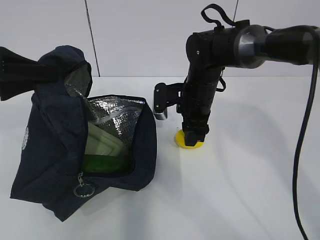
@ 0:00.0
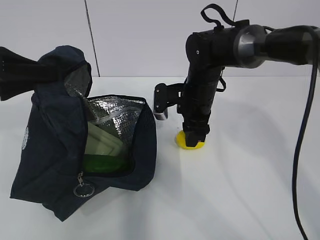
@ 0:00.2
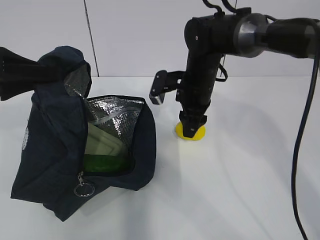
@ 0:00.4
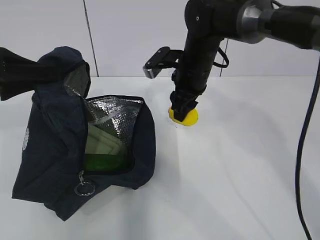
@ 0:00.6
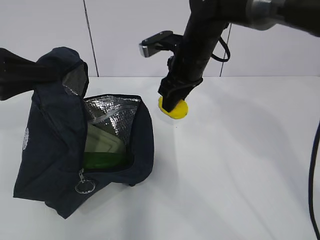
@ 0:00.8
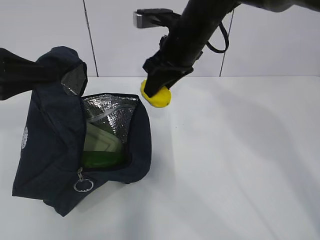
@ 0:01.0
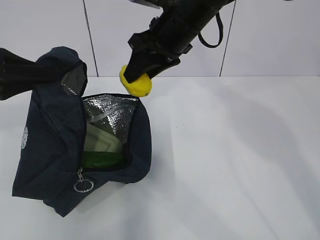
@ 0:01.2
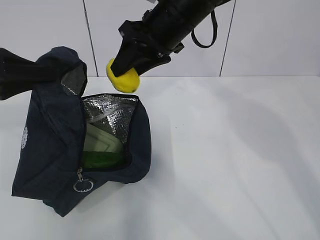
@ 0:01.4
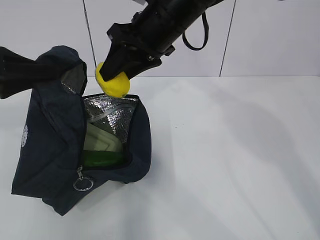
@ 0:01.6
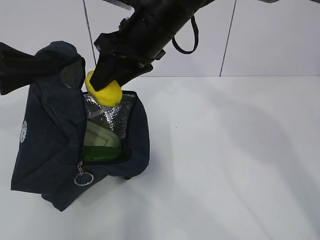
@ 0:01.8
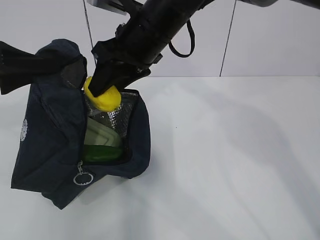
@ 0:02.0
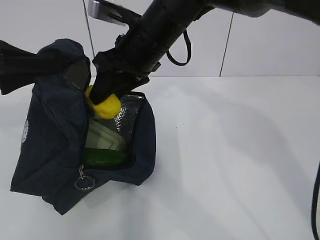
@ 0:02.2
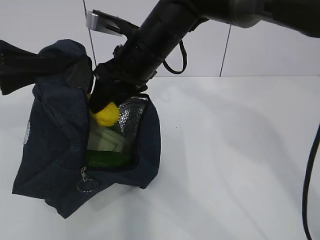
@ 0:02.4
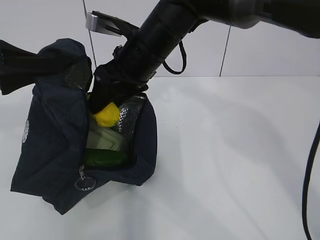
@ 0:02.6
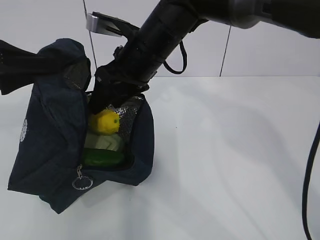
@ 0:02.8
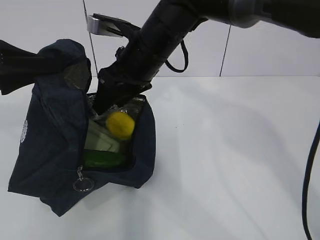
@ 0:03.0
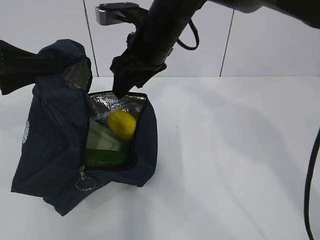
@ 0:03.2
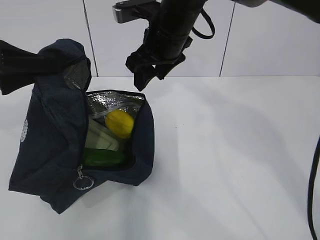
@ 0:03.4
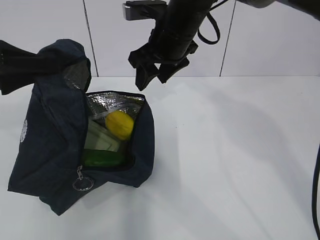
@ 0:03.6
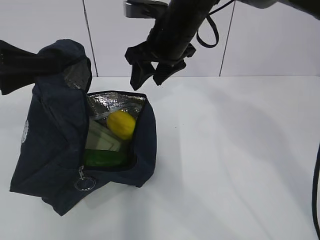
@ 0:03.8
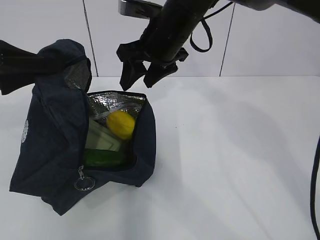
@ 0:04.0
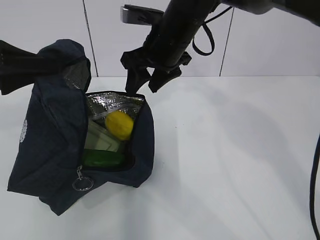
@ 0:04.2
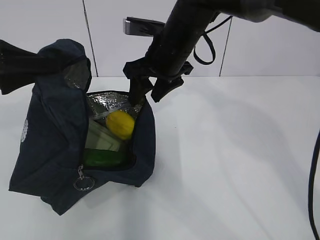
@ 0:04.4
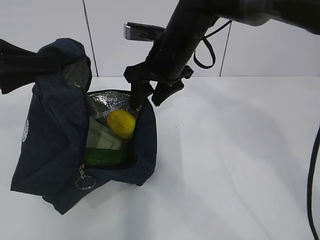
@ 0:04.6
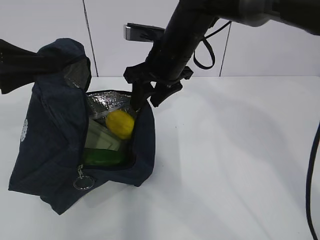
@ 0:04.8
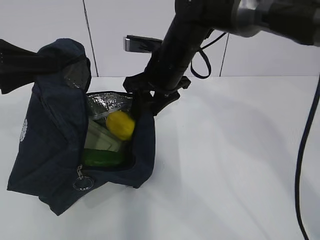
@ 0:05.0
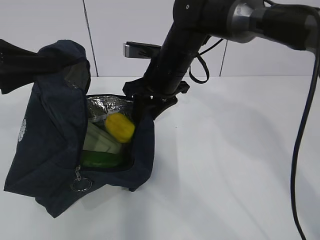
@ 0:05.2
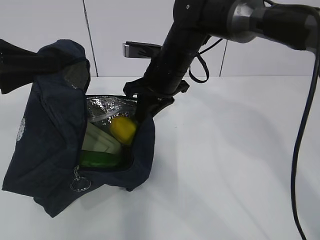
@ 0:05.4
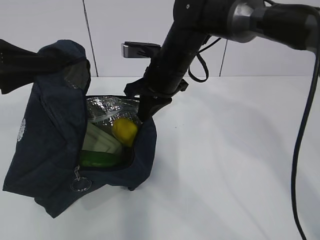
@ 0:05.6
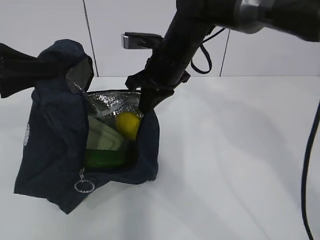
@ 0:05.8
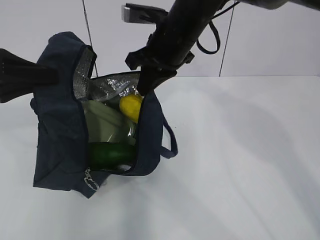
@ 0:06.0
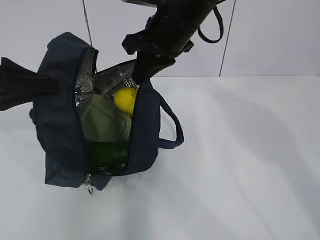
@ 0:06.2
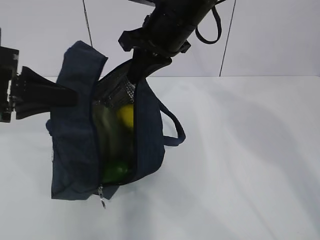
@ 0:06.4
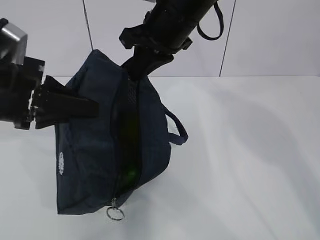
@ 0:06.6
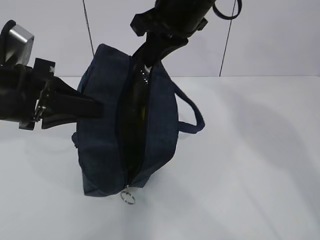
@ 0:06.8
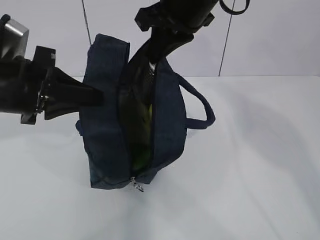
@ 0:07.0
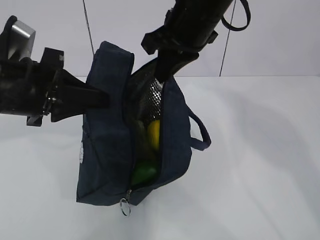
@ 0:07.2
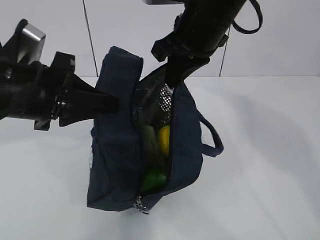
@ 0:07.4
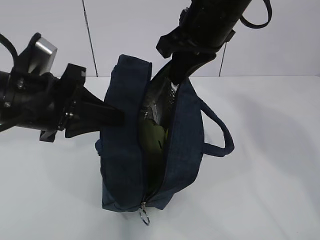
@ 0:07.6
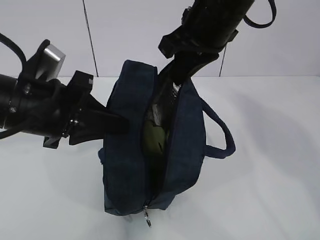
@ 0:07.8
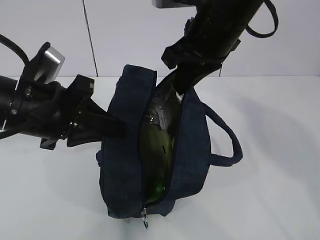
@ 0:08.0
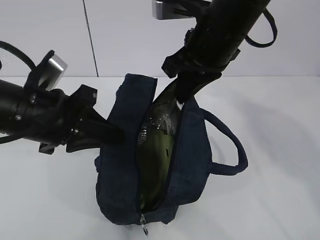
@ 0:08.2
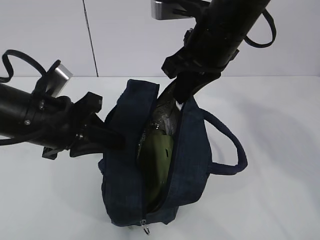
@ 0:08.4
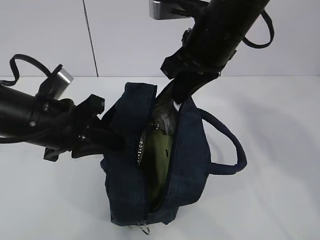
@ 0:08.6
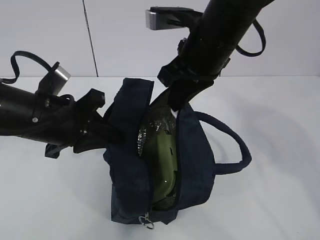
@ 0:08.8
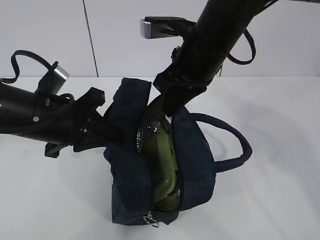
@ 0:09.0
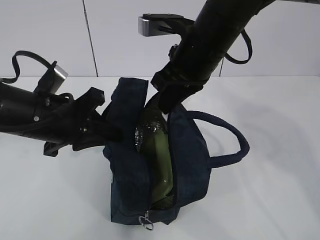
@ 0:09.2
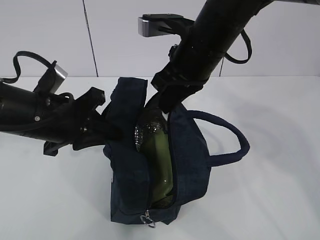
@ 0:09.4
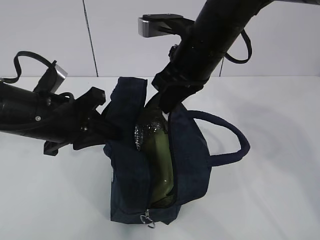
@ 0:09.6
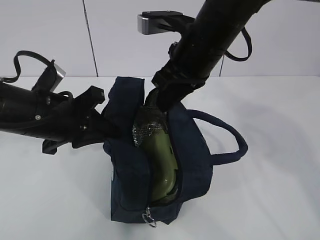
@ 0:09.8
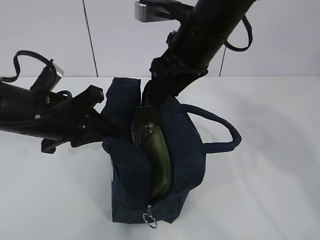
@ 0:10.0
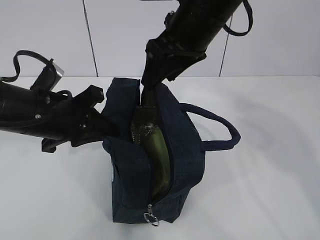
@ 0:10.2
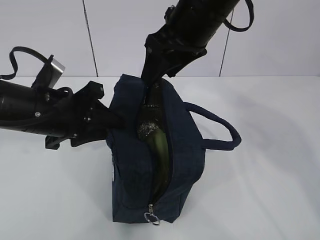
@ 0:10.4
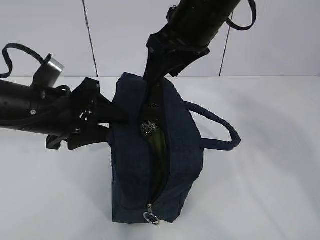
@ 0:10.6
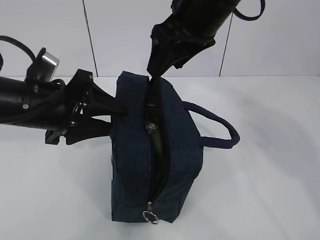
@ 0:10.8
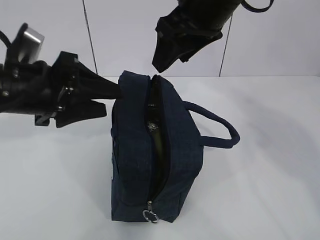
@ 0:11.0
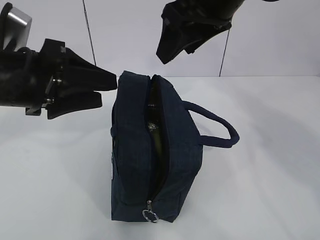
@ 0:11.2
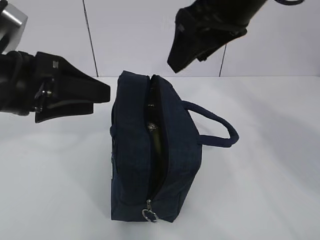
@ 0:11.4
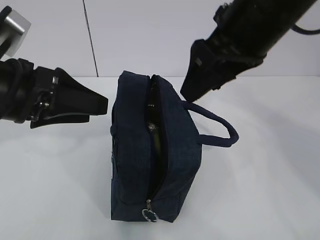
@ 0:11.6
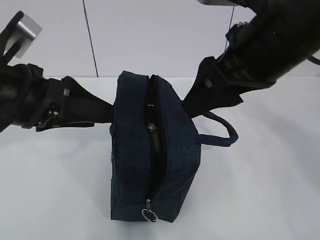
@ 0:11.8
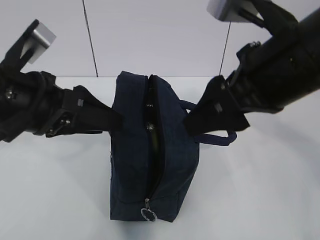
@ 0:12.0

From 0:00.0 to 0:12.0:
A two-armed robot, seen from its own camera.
From 0:00.0 to 0:01.6: The right gripper moves upward, approximately 15 cm.
From 0:01.6 to 0:03.0: The right gripper shifts by approximately 5 cm.
From 0:04.4 to 0:06.0: The right gripper closes up.
From 0:06.0 to 0:07.6: The right gripper moves upward and backward, approximately 10 cm. The left gripper shifts about 10 cm to the right.
From 0:09.0 to 0:10.4: The right gripper opens up, while the left gripper opens.
From 0:10.4 to 0:12.0: The right gripper moves backward and to the right, about 15 cm, while the left gripper heads upward, covering roughly 5 cm, and opens.

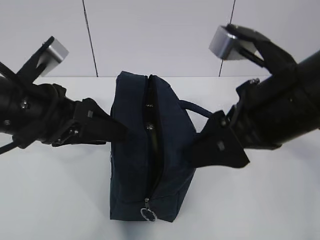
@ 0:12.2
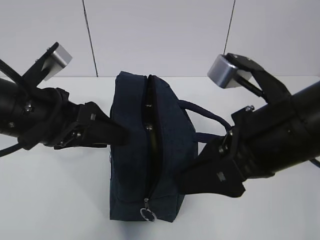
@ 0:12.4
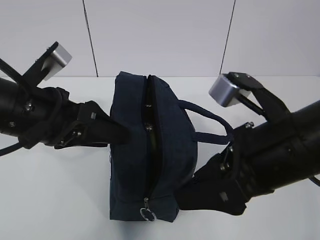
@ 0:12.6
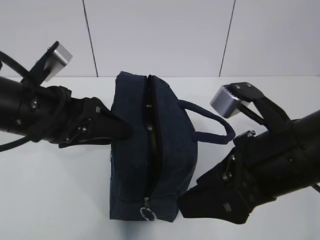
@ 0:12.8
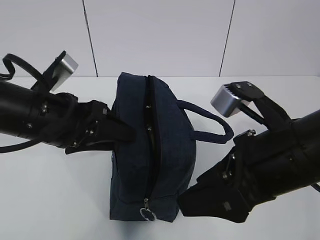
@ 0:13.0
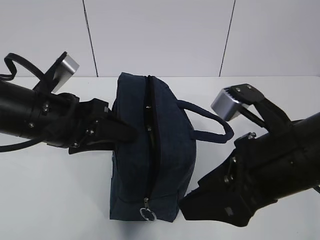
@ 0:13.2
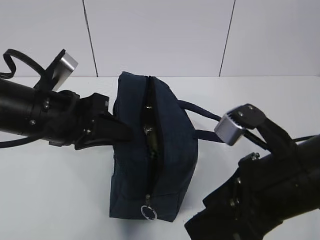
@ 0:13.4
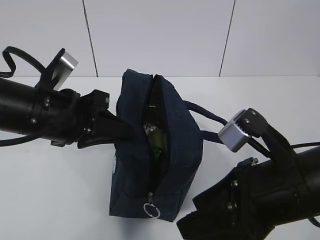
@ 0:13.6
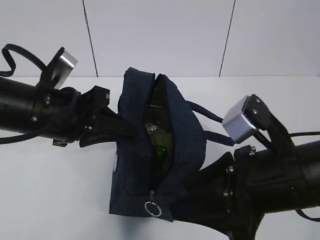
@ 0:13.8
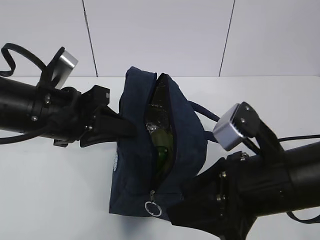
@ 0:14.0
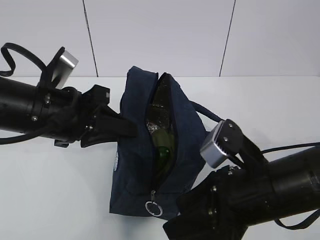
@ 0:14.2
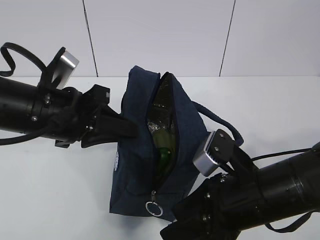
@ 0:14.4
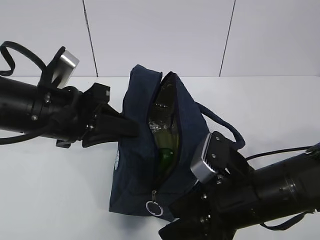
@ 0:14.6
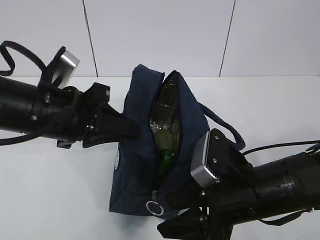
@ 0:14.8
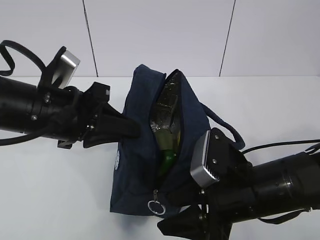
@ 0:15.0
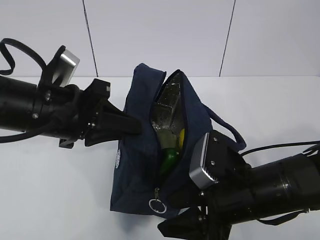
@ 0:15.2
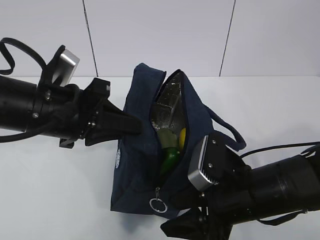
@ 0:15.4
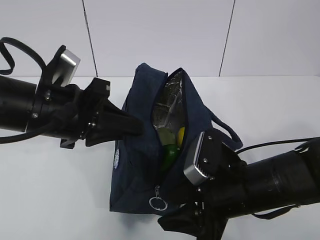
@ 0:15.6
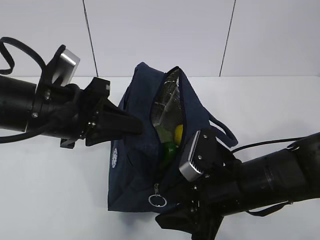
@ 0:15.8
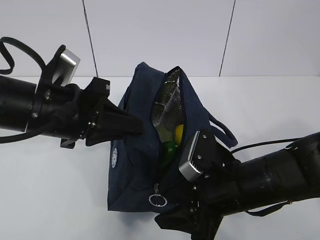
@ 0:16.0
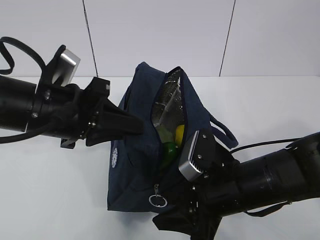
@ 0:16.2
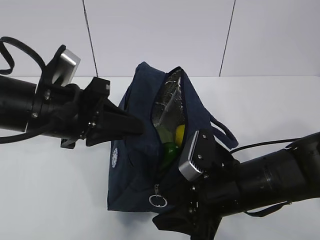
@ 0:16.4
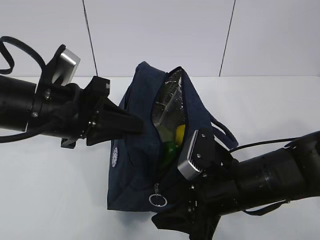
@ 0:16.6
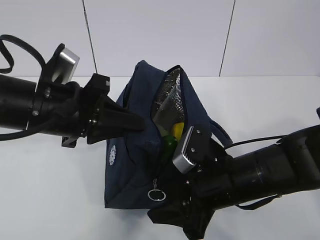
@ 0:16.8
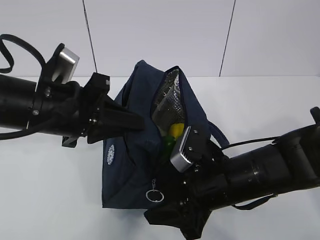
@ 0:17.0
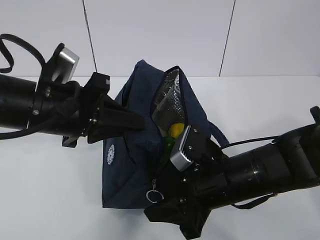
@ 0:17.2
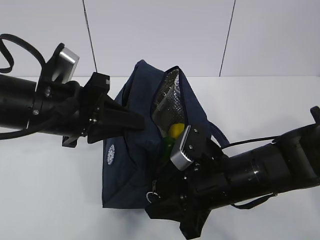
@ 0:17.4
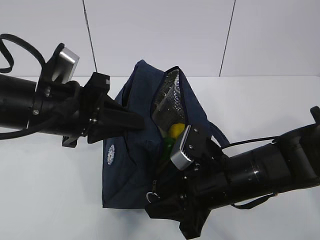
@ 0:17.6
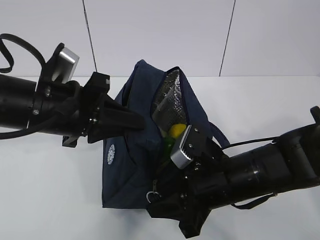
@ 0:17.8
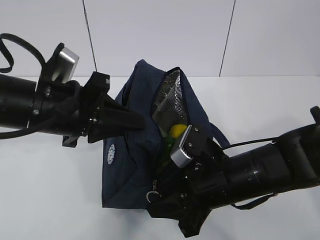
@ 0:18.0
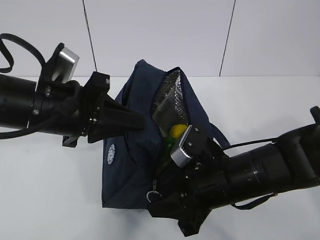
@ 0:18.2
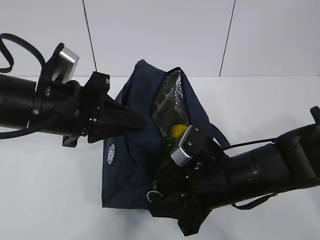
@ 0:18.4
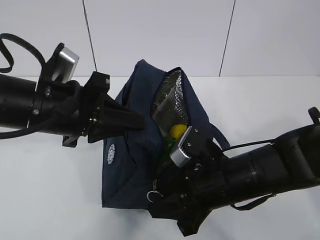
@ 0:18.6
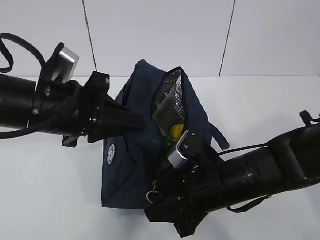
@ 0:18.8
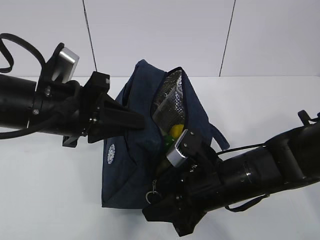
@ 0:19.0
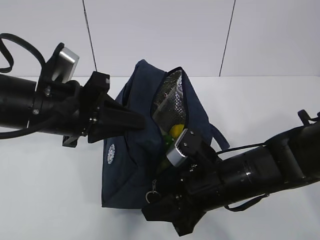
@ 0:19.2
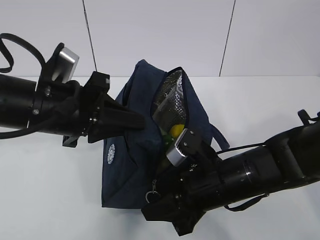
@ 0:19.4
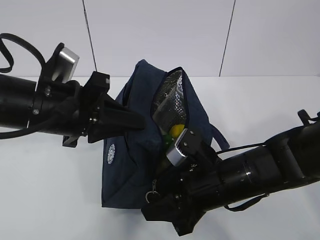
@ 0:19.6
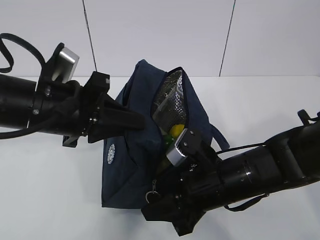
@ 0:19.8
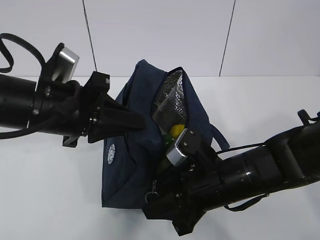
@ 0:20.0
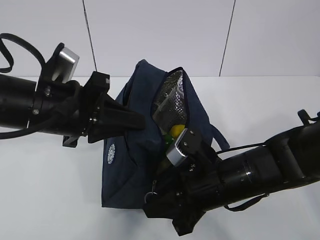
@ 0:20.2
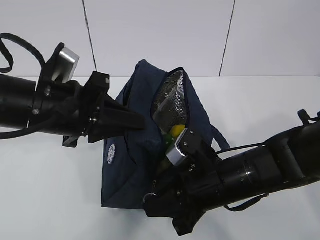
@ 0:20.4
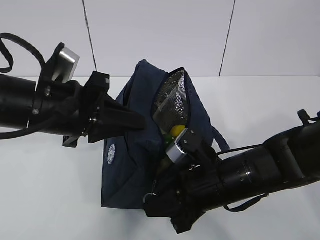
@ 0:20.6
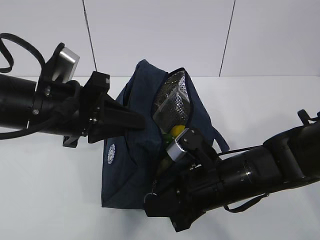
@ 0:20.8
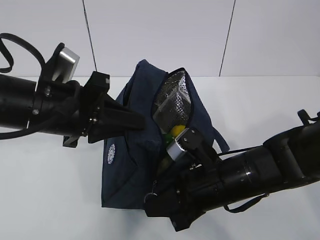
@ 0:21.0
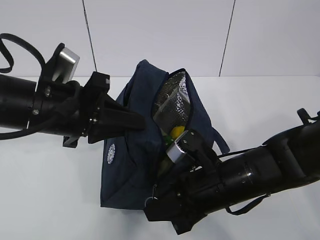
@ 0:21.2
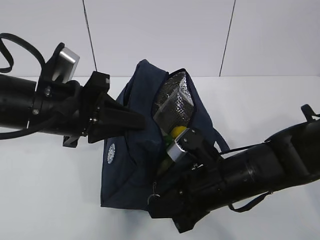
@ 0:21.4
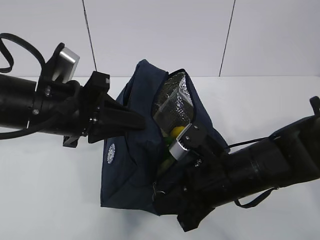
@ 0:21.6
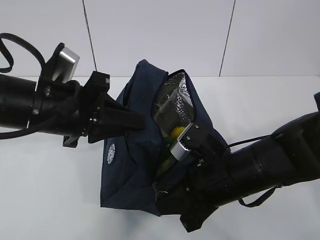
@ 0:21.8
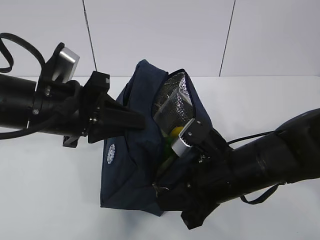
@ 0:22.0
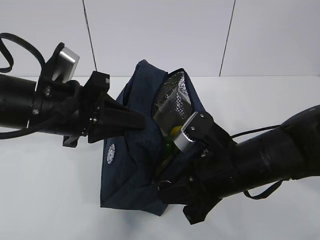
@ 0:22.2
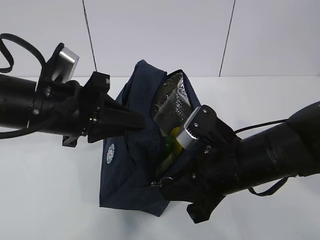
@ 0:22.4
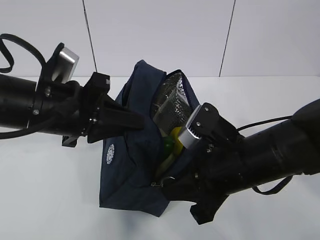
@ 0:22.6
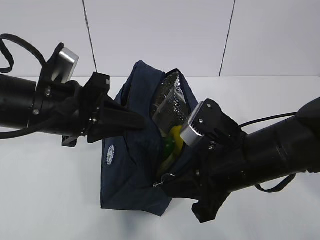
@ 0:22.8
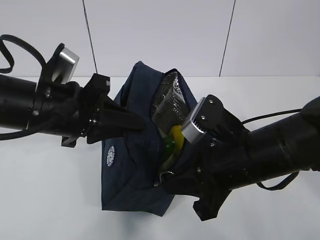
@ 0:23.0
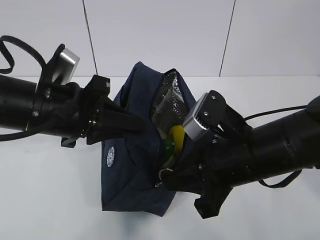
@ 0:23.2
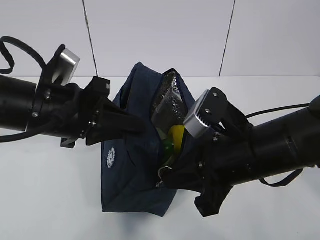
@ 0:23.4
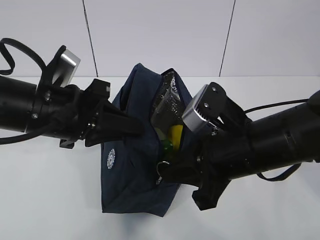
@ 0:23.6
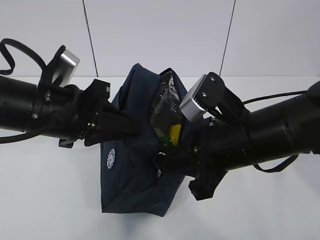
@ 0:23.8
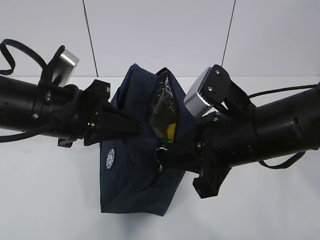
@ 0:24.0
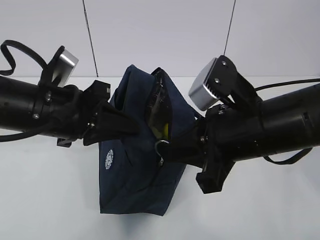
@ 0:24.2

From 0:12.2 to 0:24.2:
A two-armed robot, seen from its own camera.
Step, from 0:12.2 to 0:22.4: Grab the lunch bag with your left hand.
From 0:12.2 to 0:13.8: The right gripper moves downward, roughly 5 cm; the left gripper closes.
From 0:13.8 to 0:15.2: The right gripper moves downward, approximately 5 cm.
From 0:15.2 to 0:18.2: The grippers move only a little.
From 0:18.2 to 0:19.8: Neither gripper changes place.
From 0:19.8 to 0:21.2: The right gripper closes its fingers.
From 0:21.2 to 0:22.6: The right gripper is displaced upward by approximately 5 cm.
From 0:22.6 to 0:24.2: The right gripper travels upward by some 5 cm.
